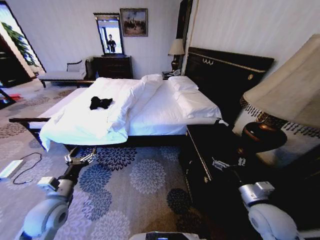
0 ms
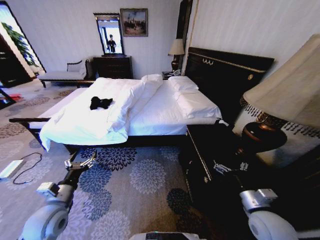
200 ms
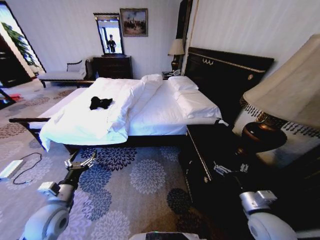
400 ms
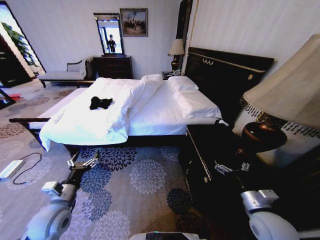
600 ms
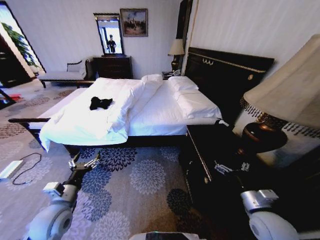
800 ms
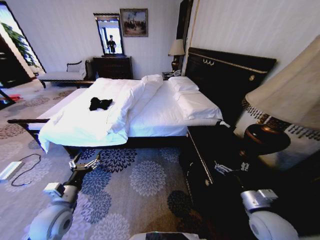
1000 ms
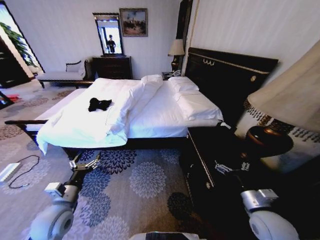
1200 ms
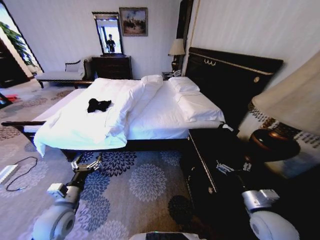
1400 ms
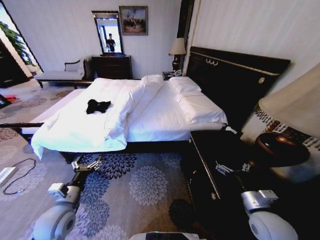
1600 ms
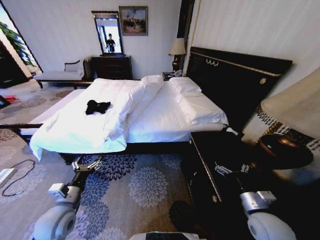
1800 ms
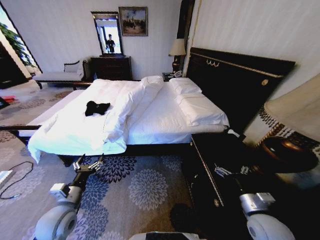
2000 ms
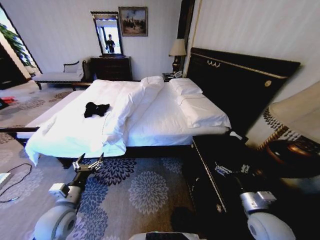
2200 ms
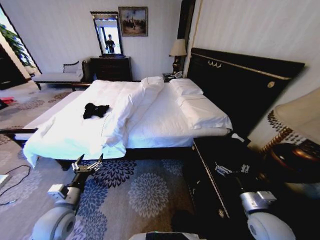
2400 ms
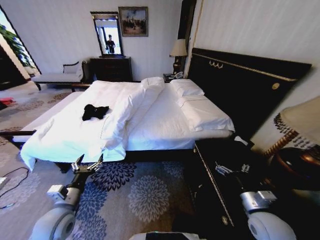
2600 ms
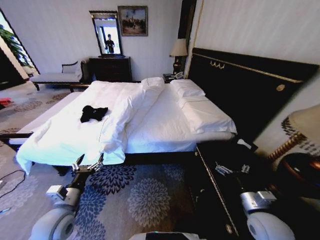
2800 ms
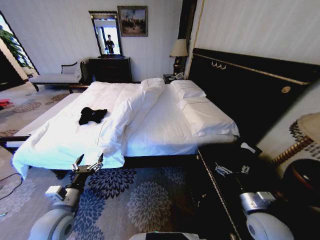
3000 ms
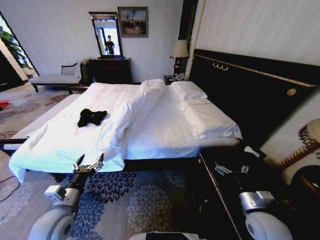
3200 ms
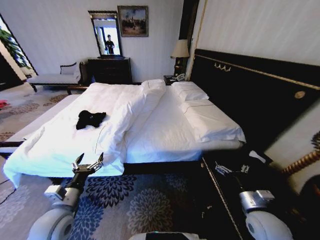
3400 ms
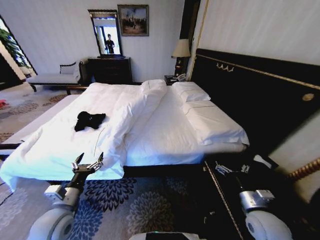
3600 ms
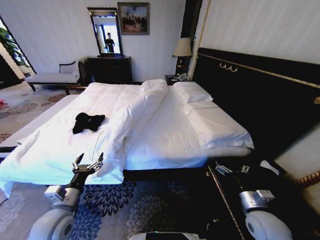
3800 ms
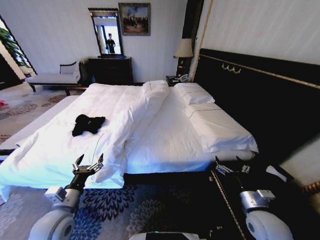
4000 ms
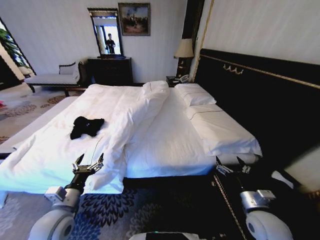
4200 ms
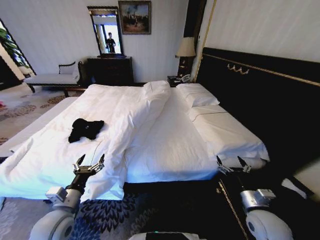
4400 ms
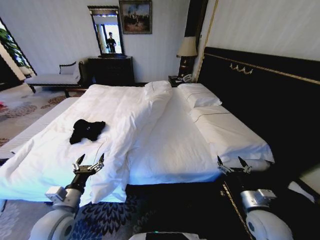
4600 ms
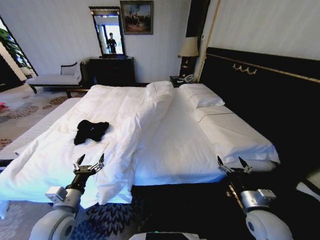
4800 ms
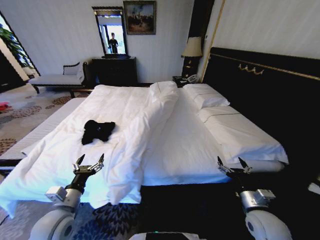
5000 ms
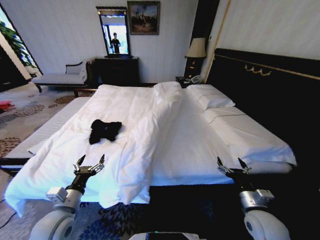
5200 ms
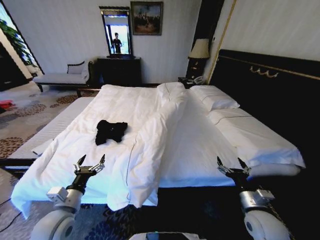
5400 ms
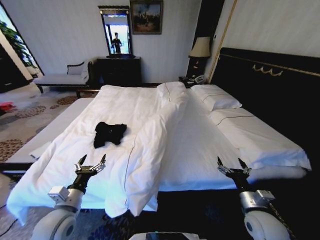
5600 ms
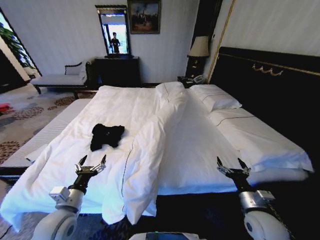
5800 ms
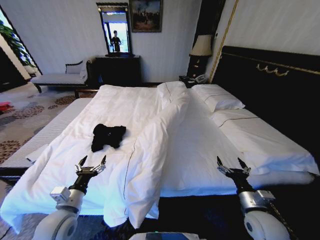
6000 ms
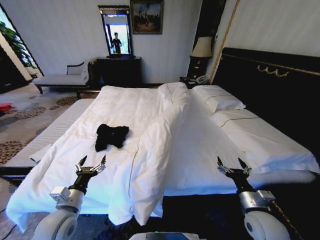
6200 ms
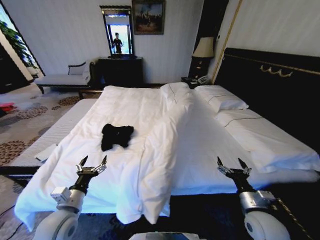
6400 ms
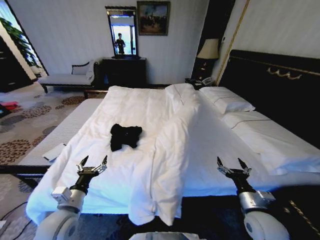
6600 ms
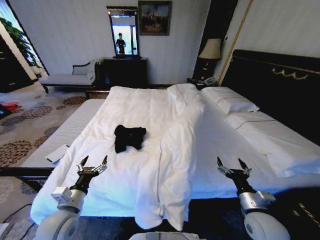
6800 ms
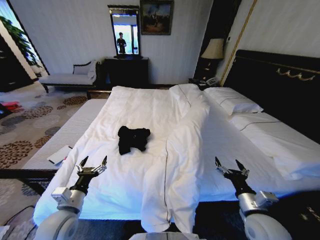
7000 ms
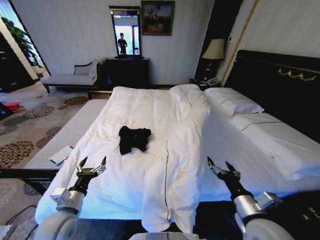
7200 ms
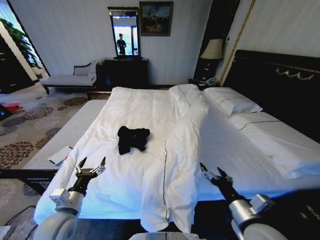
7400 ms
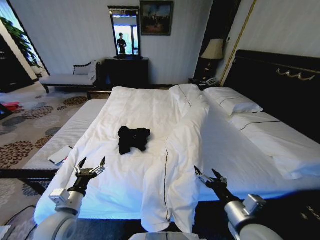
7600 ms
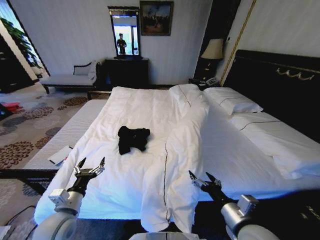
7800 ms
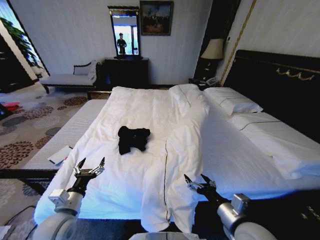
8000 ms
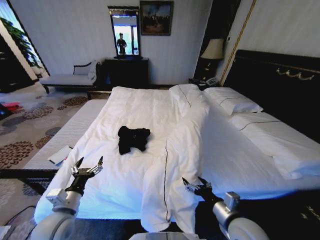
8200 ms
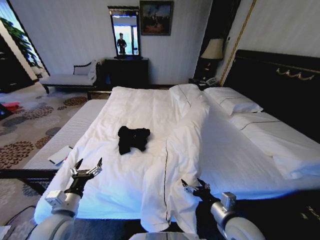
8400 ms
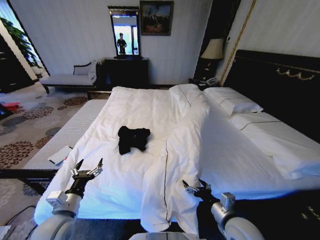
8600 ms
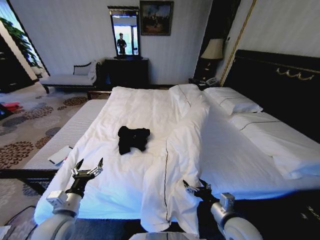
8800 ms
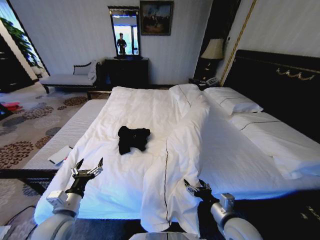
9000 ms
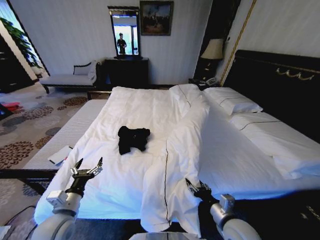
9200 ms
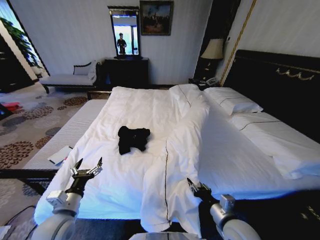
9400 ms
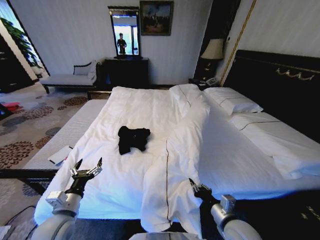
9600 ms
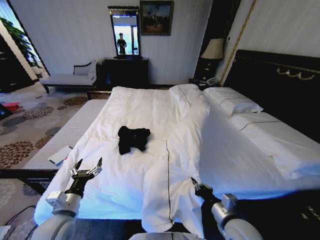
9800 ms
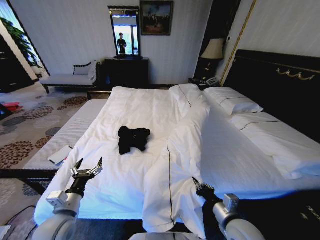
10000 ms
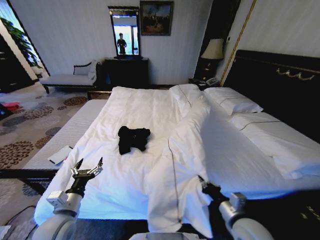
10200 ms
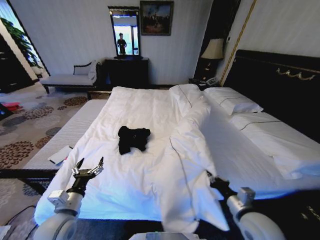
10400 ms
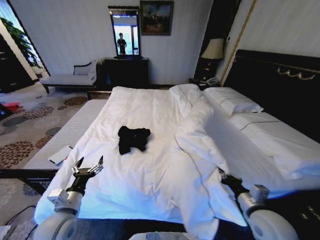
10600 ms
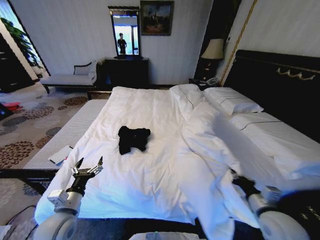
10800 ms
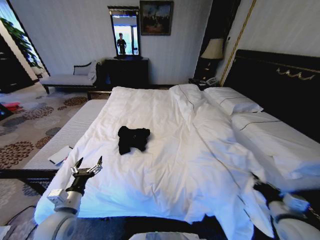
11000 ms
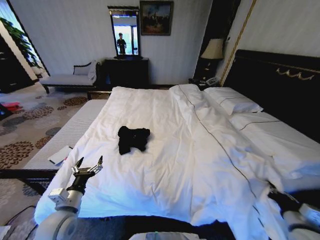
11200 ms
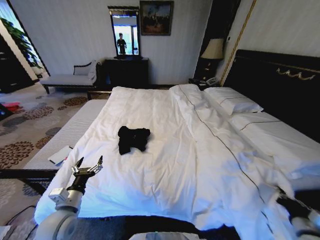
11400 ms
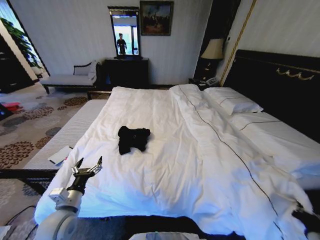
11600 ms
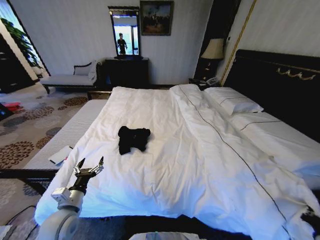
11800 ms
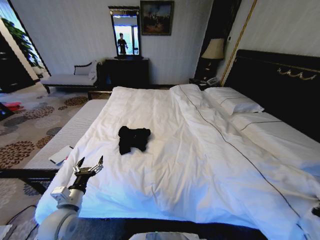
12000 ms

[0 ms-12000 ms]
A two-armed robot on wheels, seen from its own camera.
Task of the whole recording: Fold the clothes on the bed.
6000 ms to 7600 ms: The right gripper travels to the left and upward by some 10 cm.
7600 ms to 9000 ms: The right gripper is displaced downward by roughly 5 cm.
9000 ms to 10400 ms: The right gripper ends up approximately 5 cm from where it was, and closes.
10400 ms to 12000 ms: The right gripper goes approximately 25 cm to the right.

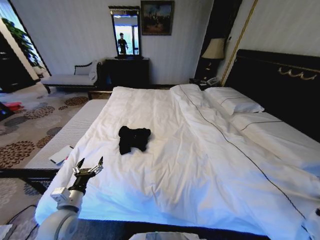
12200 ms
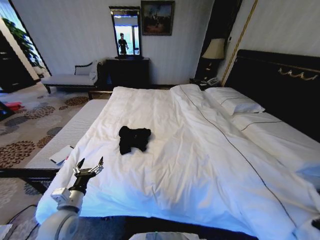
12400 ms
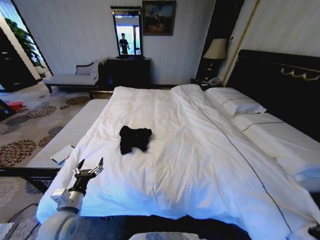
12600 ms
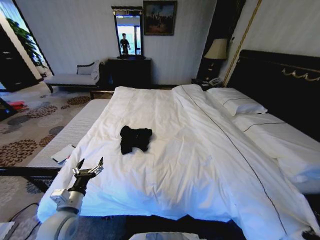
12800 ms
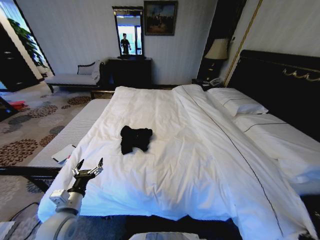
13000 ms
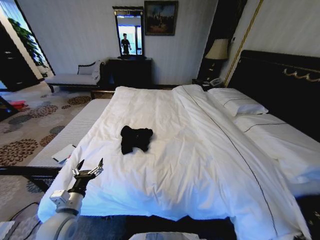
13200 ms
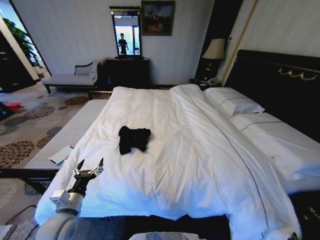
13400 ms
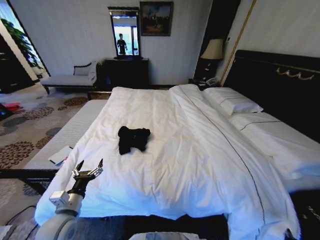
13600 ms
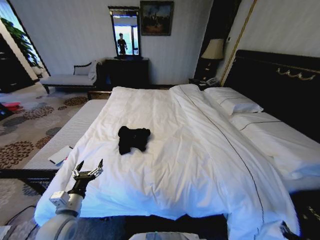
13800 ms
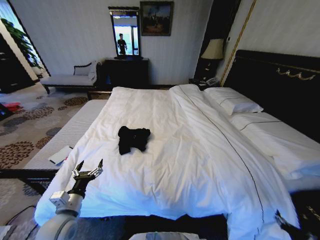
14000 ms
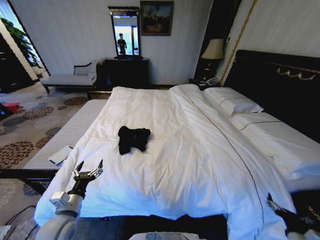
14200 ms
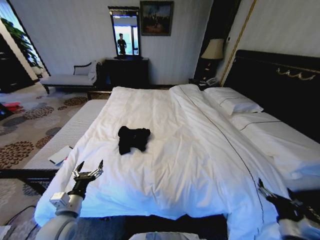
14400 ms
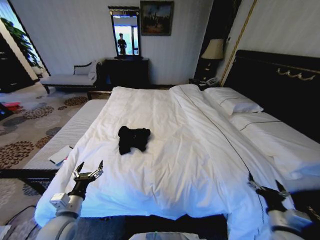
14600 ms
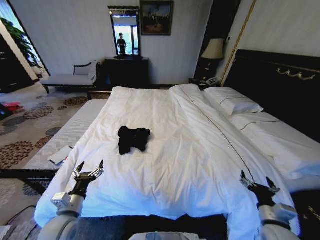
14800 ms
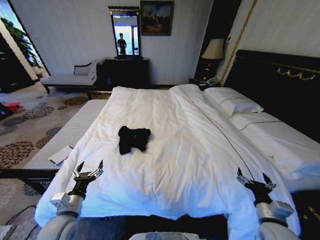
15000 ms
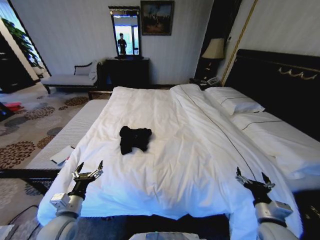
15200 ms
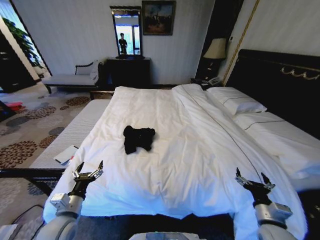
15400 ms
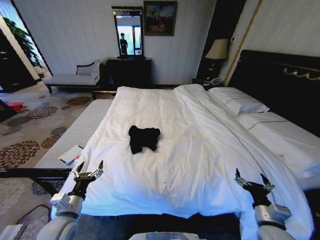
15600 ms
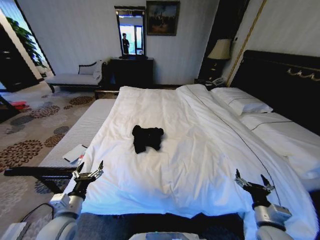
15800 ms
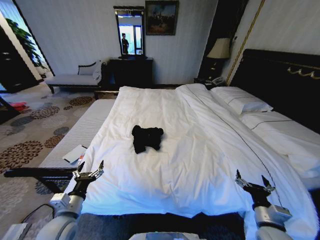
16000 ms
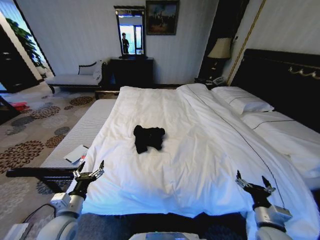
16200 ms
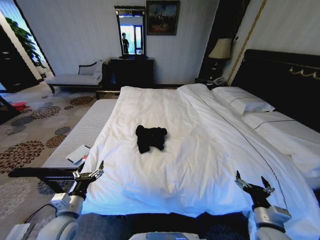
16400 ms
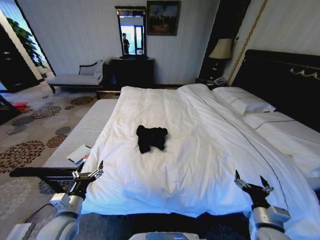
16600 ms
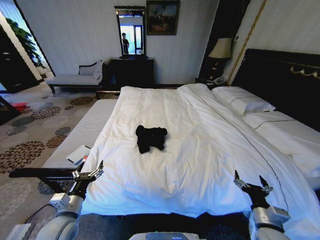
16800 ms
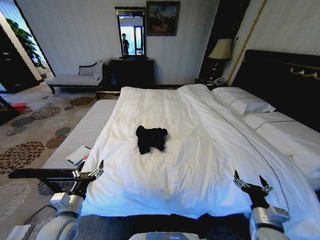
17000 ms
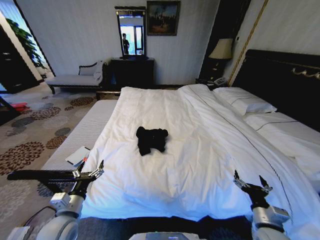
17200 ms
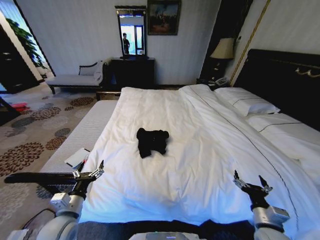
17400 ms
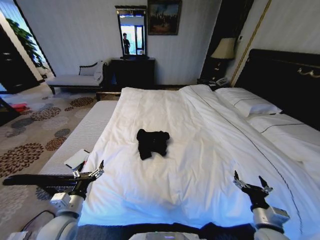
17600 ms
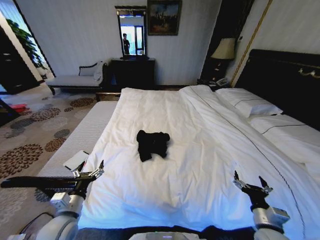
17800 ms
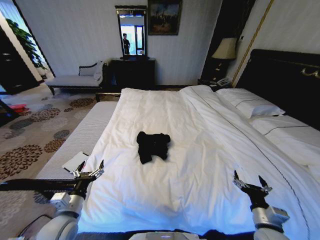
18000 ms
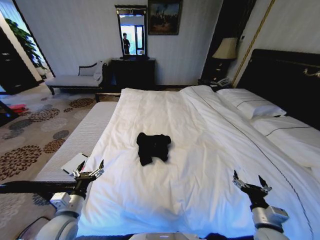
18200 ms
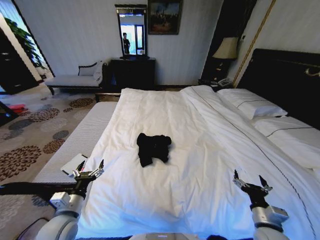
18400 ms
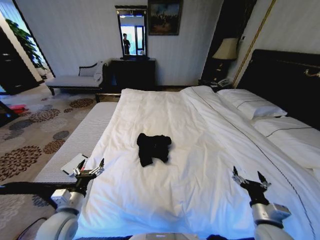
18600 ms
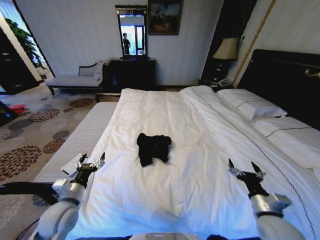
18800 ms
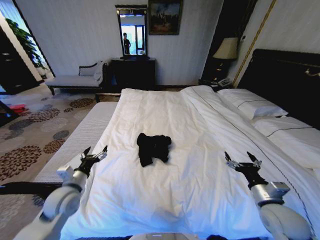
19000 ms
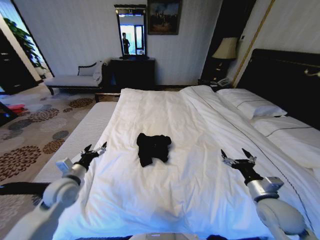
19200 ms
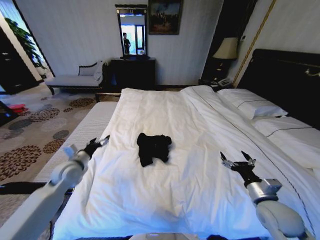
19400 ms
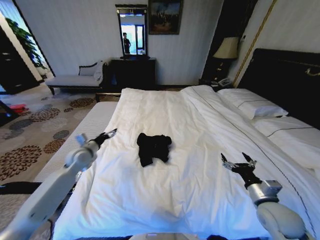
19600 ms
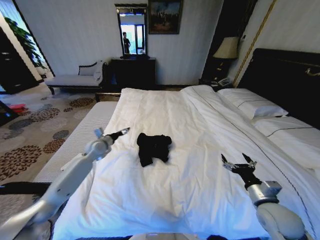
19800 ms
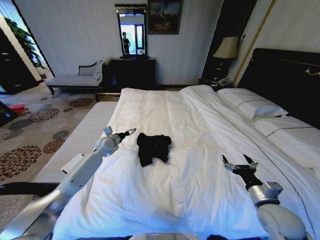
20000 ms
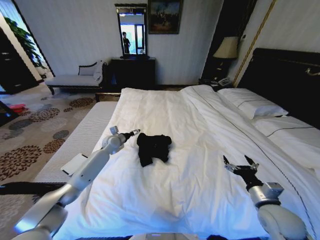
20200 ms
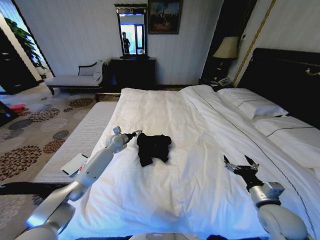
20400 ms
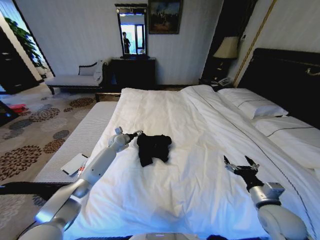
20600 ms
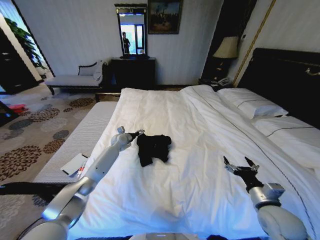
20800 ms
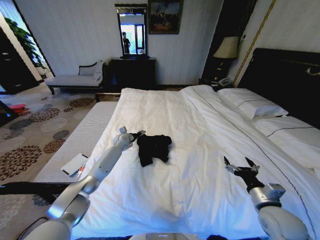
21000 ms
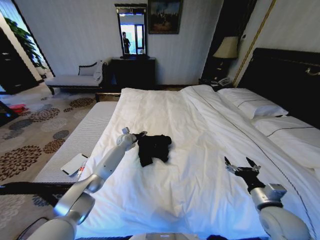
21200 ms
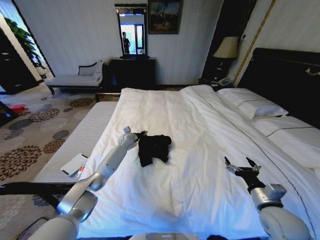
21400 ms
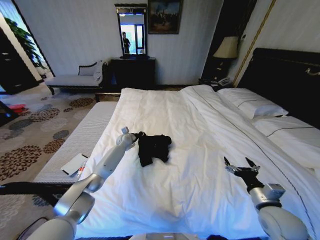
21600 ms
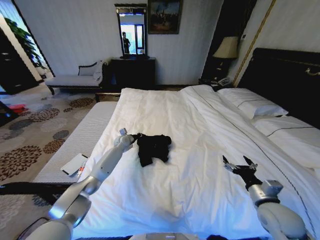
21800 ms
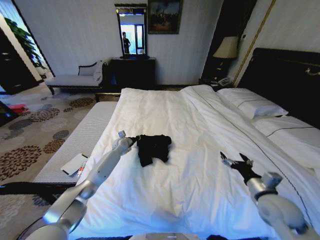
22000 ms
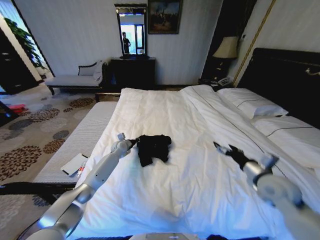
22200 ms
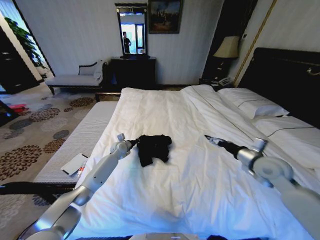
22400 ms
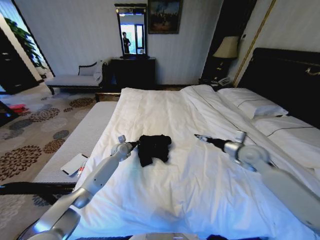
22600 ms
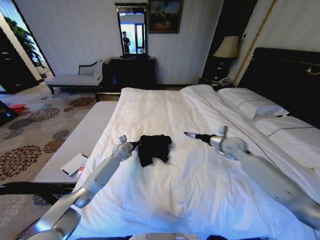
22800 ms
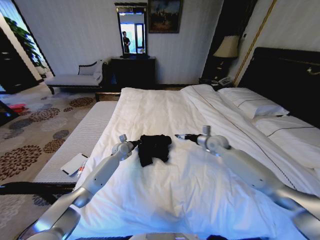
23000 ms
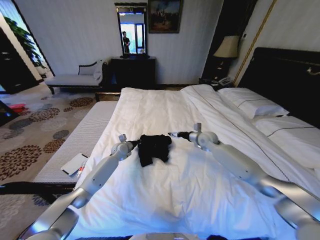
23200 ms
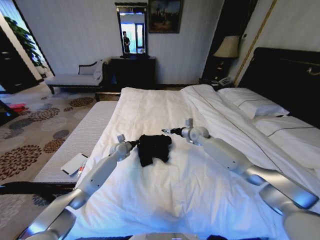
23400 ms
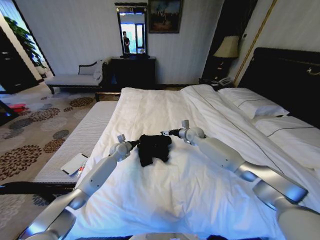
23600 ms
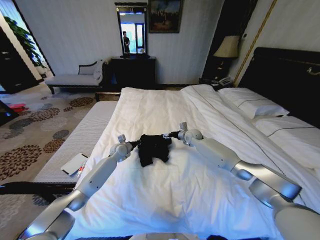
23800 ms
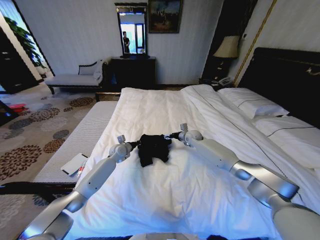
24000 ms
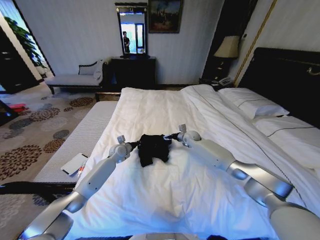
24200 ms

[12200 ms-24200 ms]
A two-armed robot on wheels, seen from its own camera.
Task of the whole recording: Fold the clothes on the bed.
12200 ms to 13800 ms: The right gripper moves downward and to the left, some 10 cm, and opens its fingers.
13800 ms to 15200 ms: The right gripper moves to the left, upward and forward, roughly 20 cm, and opens up.
18200 ms to 19800 ms: The right gripper heads upward and forward, covering some 10 cm. The left gripper moves forward, some 30 cm.
19800 ms to 21200 ms: The left gripper shifts roughly 20 cm to the right, forward and downward, and closes up.
21200 ms to 22600 ms: The left gripper is displaced backward by roughly 5 cm, and closes up; the right gripper goes approximately 20 cm forward and upward.
22600 ms to 24200 ms: The right gripper shifts some 30 cm forward, to the left and downward.
